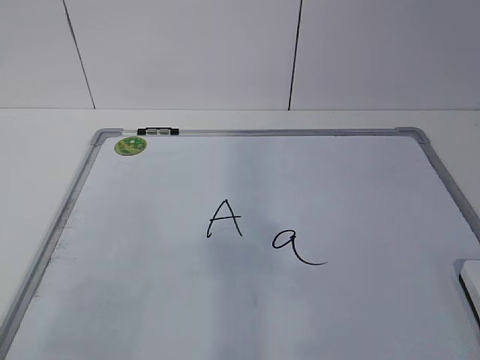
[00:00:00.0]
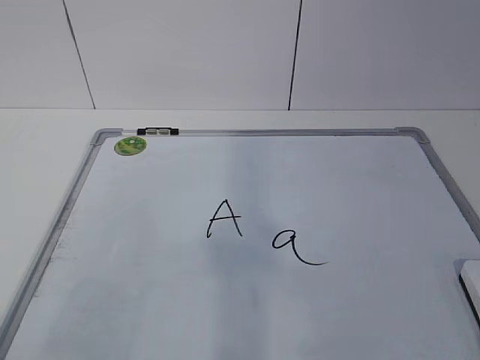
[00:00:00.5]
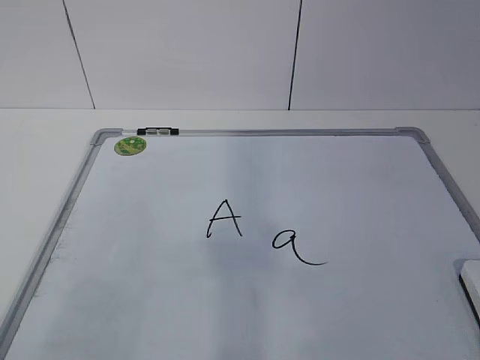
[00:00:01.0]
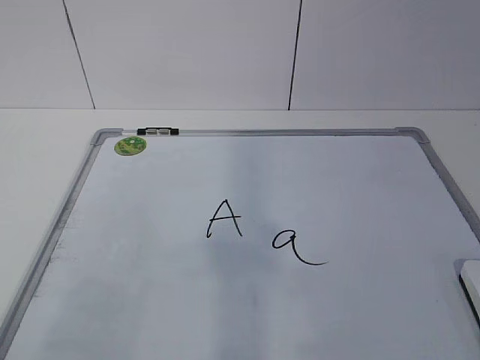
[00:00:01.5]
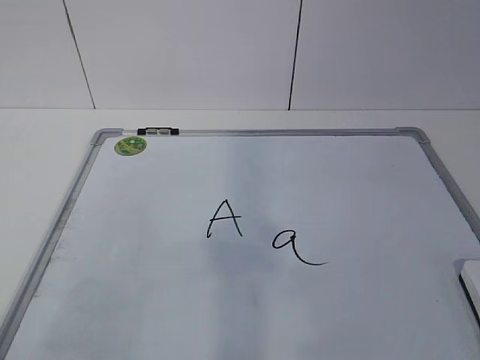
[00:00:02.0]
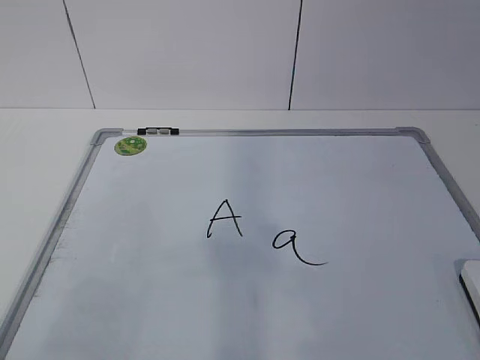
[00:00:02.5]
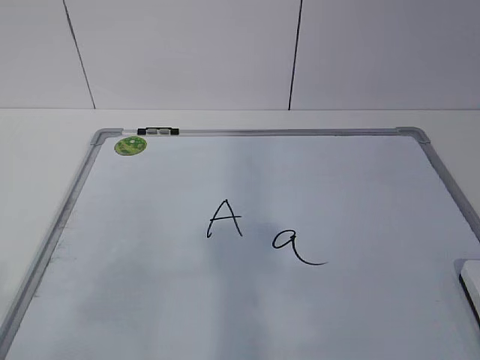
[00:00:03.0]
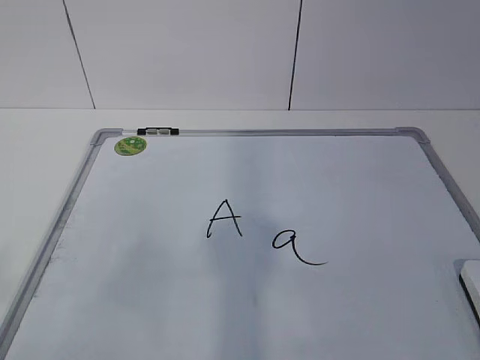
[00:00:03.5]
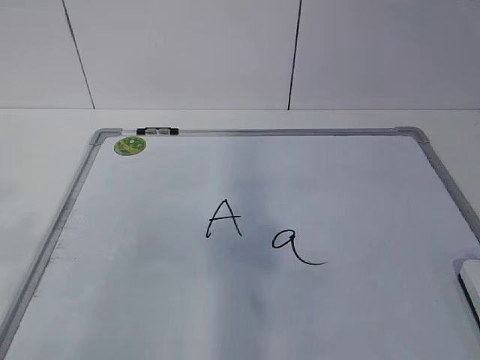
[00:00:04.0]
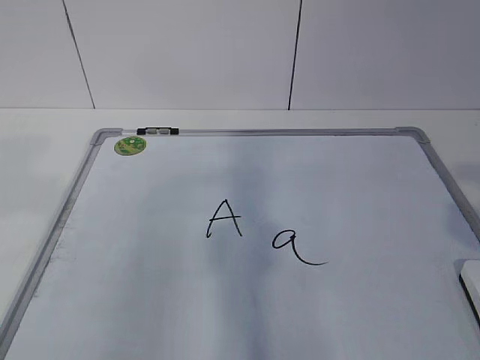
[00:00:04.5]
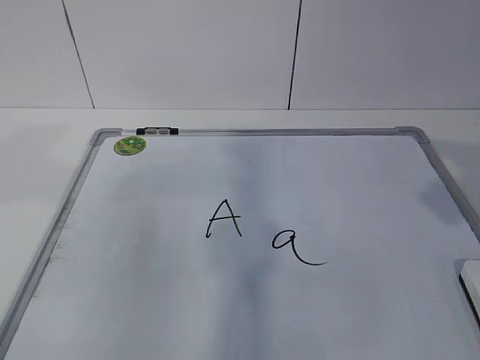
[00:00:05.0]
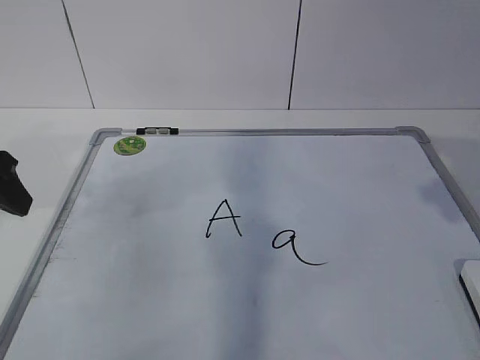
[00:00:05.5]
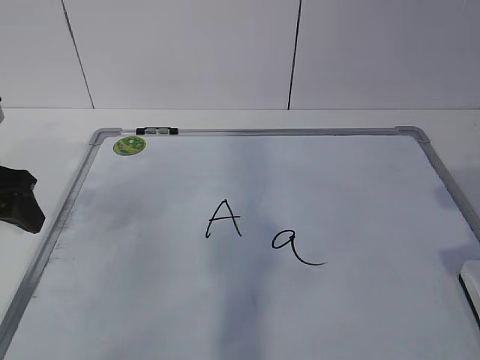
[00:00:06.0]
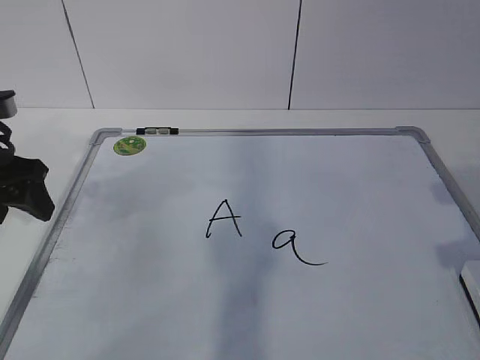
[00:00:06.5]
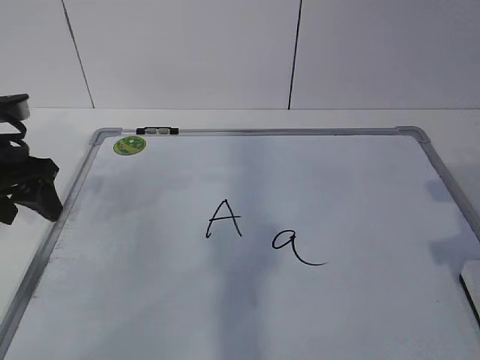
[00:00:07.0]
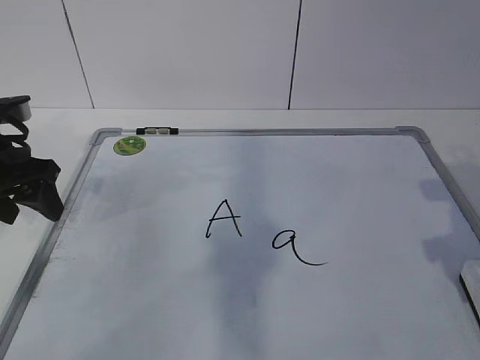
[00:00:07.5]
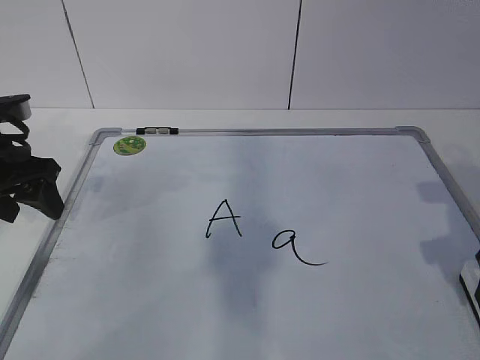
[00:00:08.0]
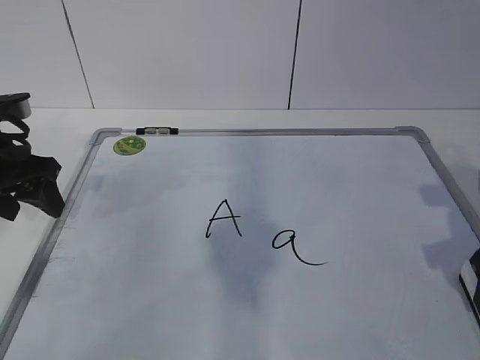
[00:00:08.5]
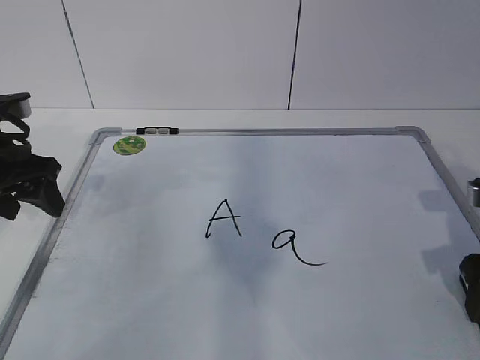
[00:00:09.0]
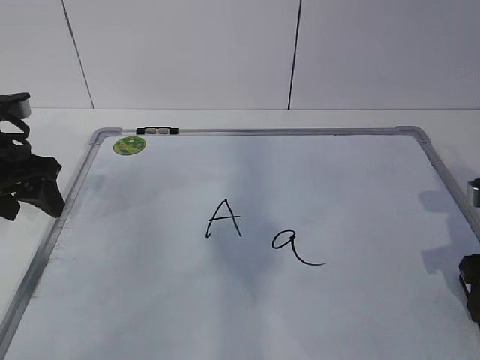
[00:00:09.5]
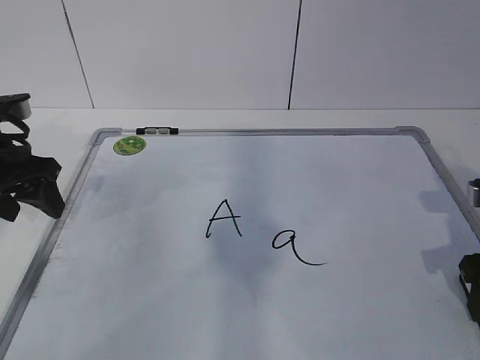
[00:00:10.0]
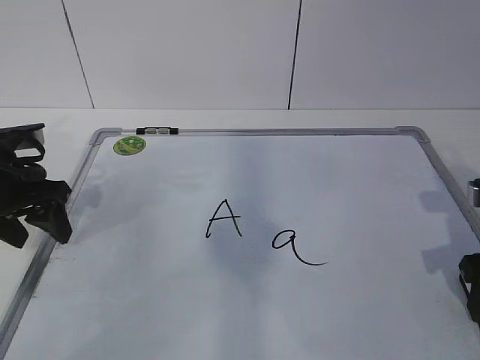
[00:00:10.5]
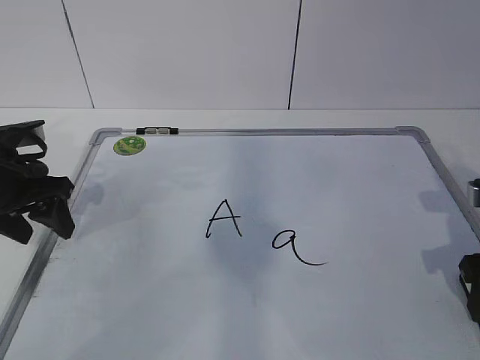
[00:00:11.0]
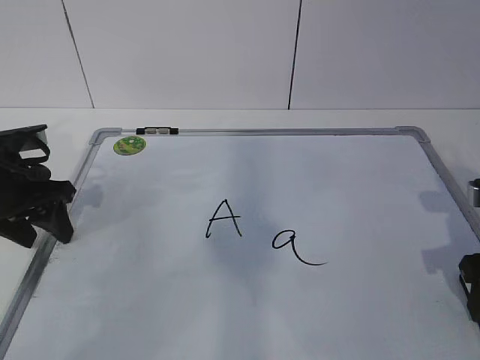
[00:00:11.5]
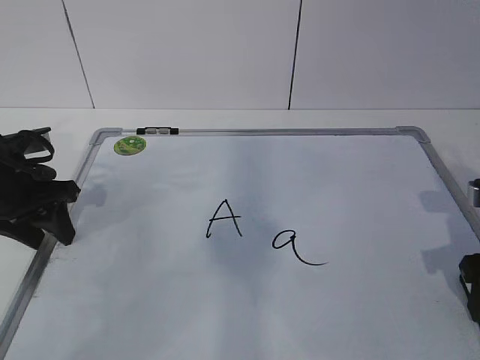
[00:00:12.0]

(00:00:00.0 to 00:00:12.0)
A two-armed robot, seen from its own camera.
Task of the whole recording: pick up the eraser on the blackboard and erase the letter "a".
Step, 00:00:00.0 - 00:00:07.5: Grab the eraser with your right hand.
00:00:04.0 - 00:00:06.0: The left gripper moves forward and downward, about 30 cm.
00:00:06.0 - 00:00:08.0: The right gripper shifts about 10 cm forward and downward.
00:00:08.0 - 00:00:10.0: The right gripper closes its fingers.
00:00:10.0 - 00:00:12.0: The grippers move only a little.

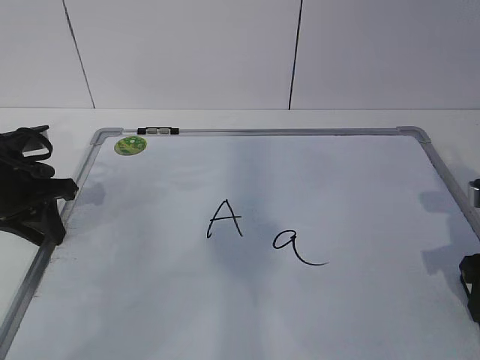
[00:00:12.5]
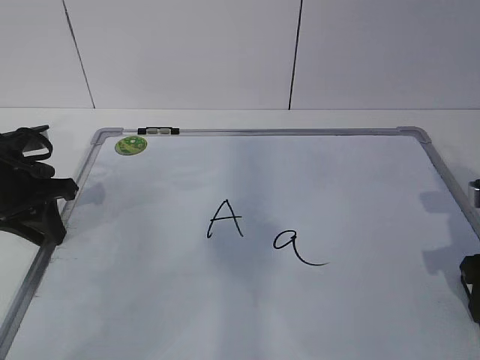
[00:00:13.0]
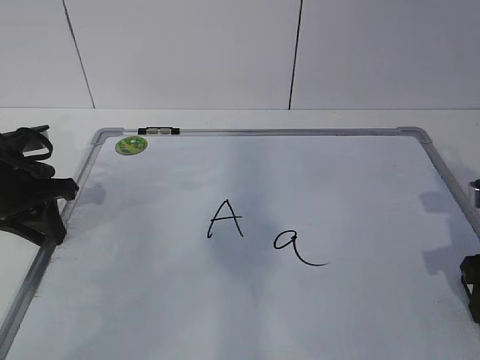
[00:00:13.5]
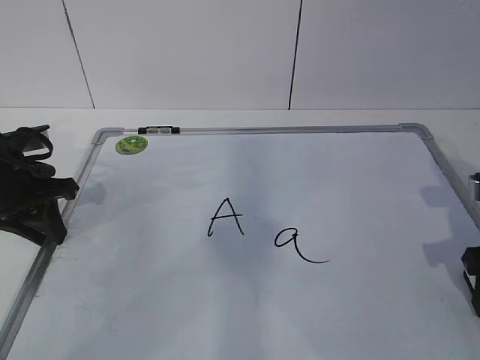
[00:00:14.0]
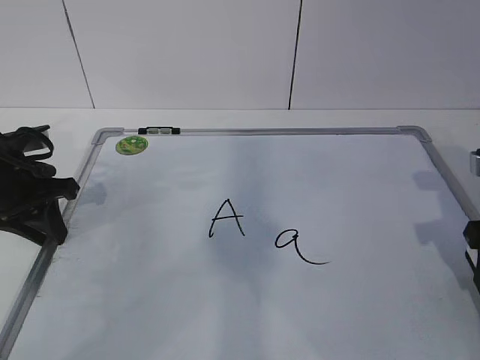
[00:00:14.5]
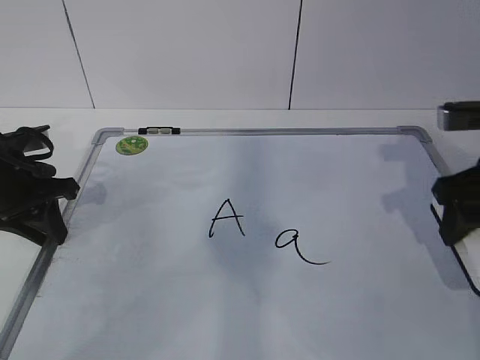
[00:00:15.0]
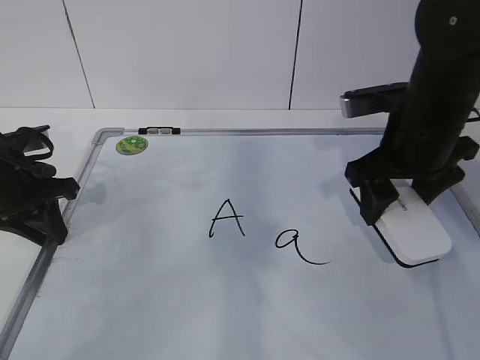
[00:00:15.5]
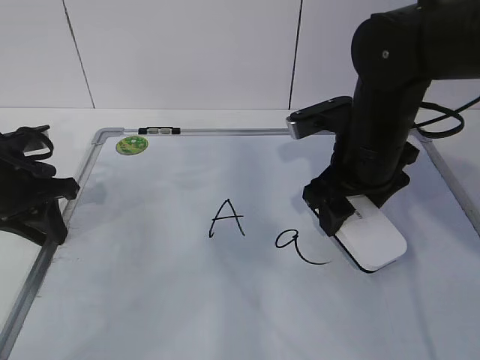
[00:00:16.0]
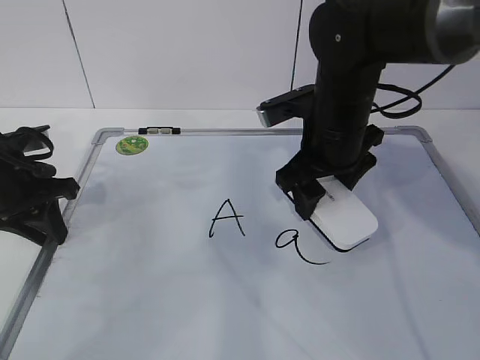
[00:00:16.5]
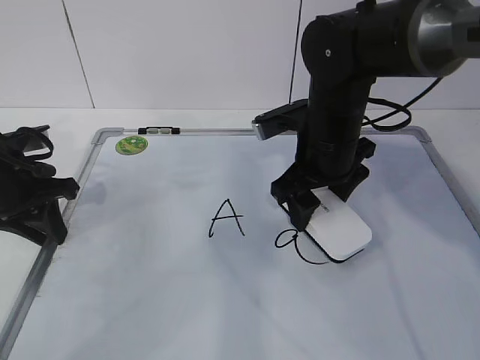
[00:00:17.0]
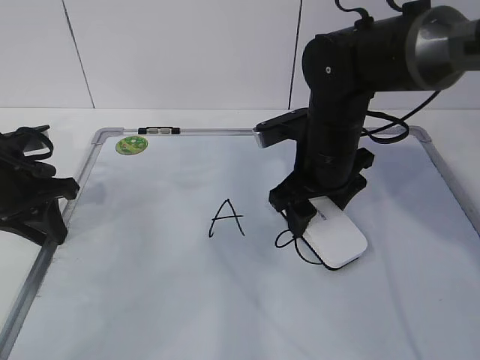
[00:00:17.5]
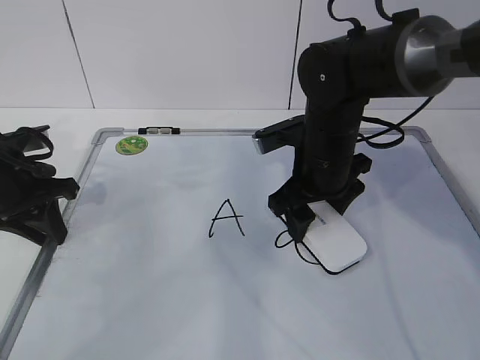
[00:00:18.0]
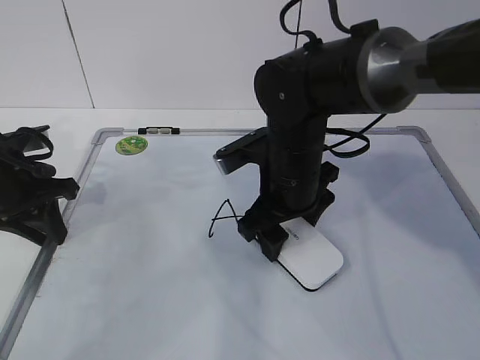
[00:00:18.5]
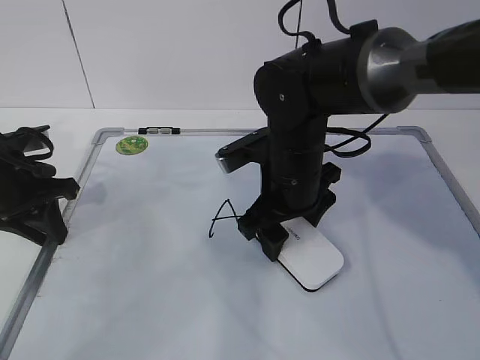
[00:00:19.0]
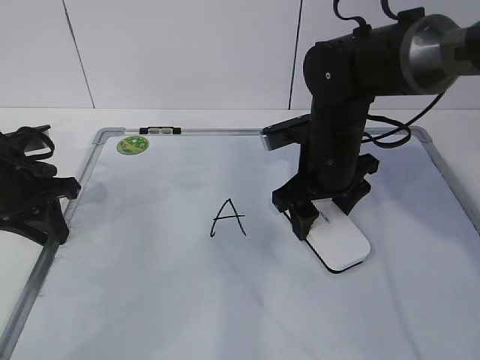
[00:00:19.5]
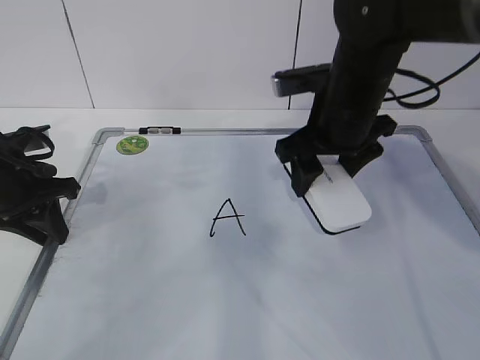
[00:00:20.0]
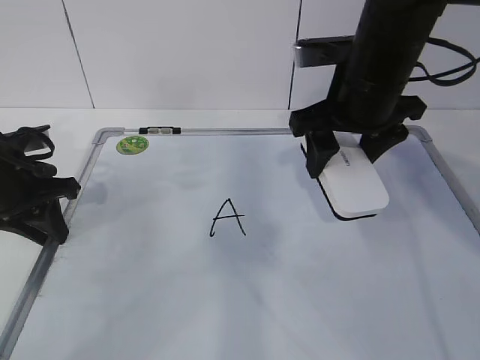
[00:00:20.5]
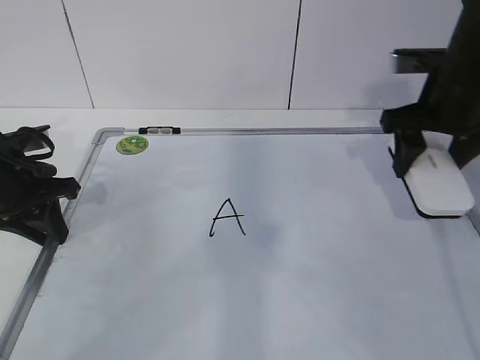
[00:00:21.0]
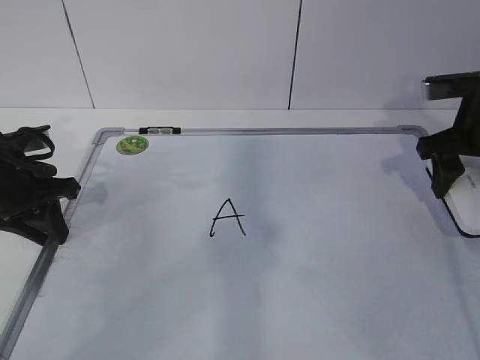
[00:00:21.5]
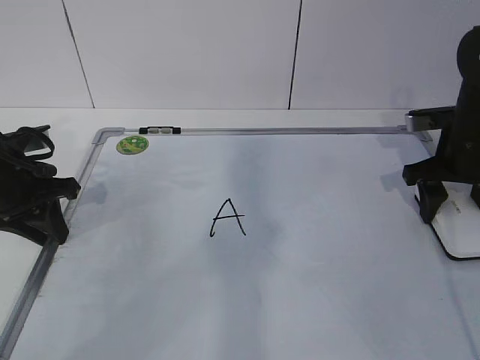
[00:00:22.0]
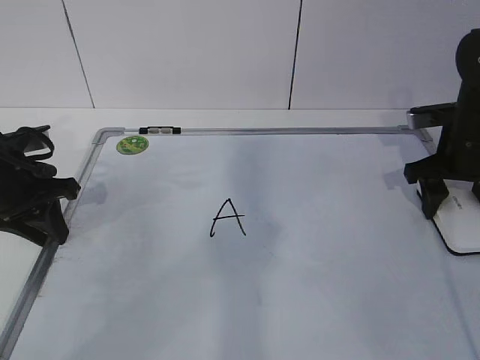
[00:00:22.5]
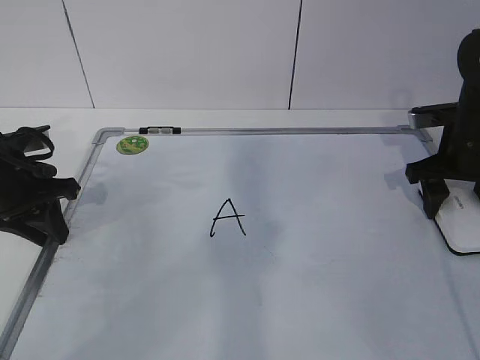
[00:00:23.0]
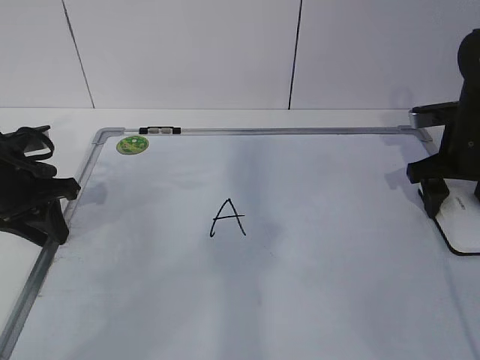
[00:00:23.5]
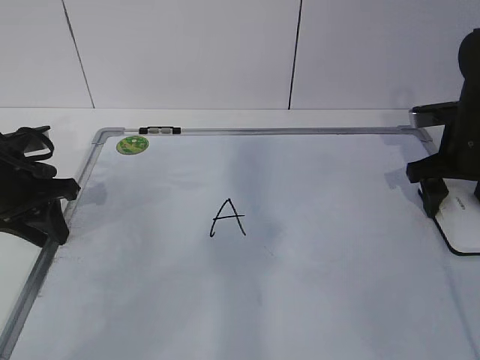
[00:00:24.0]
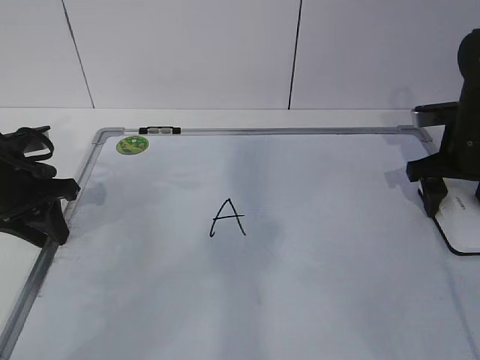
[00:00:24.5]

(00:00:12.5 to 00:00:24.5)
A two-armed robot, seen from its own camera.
Task of the whole recording: pick up the eraser on the blackboard and erase the letter "a".
Step, 00:00:12.5 - 00:00:16.0: Erase the letter a with your right hand.
Step, 00:00:16.5 - 00:00:19.0: Put down the eraser with your right hand.
00:00:12.5 - 00:00:14.5: The grippers move only a little.
00:00:14.5 - 00:00:16.5: The right gripper travels to the left and forward by approximately 20 cm.
00:00:16.5 - 00:00:18.5: The right gripper moves approximately 5 cm.
00:00:18.5 - 00:00:20.5: The right gripper heads upward and to the right, covering approximately 10 cm.
00:00:20.5 - 00:00:22.5: The right gripper is displaced to the right and downward by some 20 cm.
00:00:22.5 - 00:00:24.5: The right gripper opens.

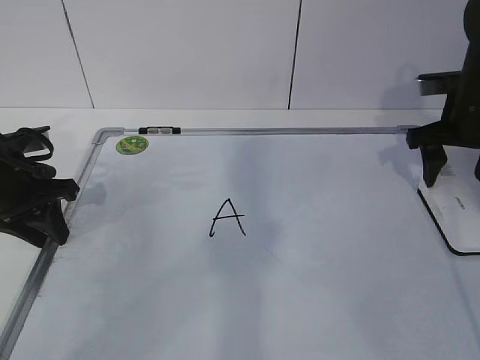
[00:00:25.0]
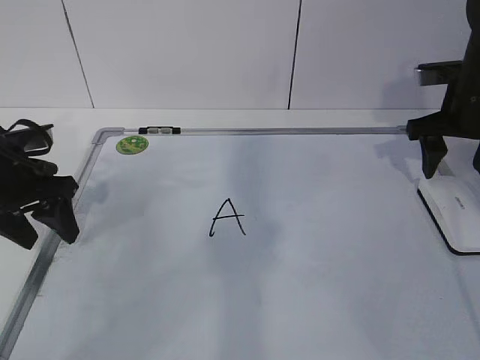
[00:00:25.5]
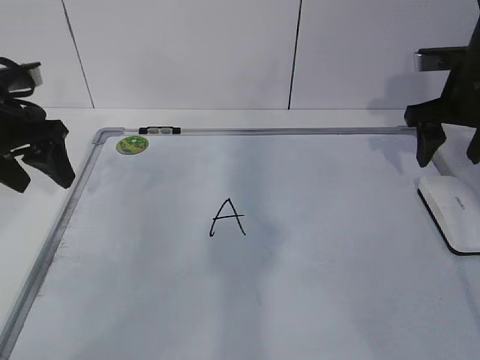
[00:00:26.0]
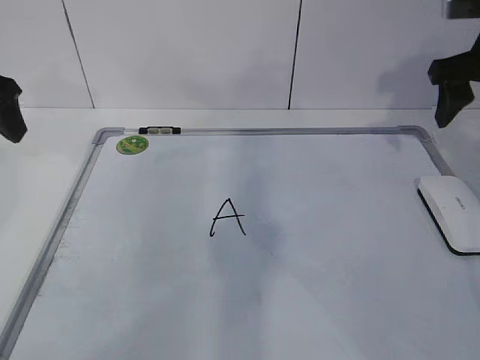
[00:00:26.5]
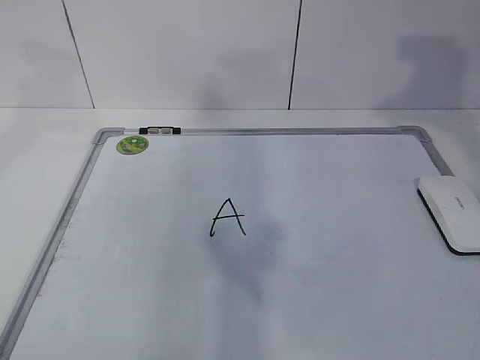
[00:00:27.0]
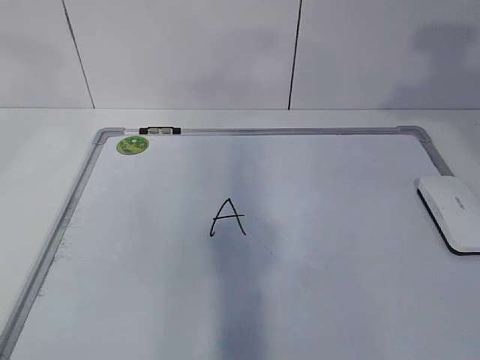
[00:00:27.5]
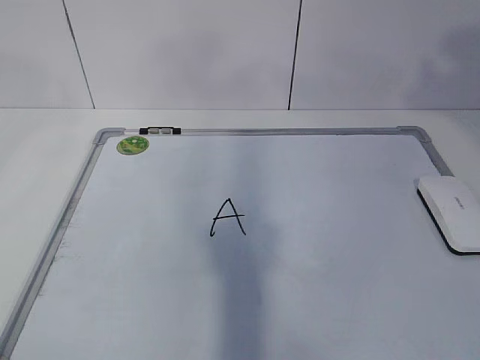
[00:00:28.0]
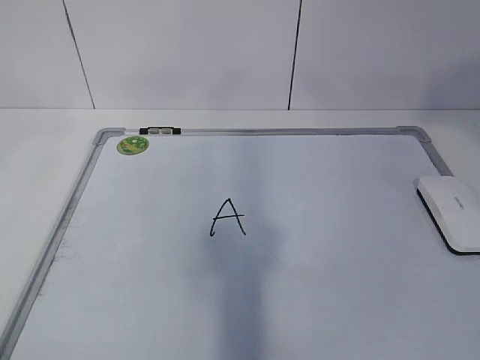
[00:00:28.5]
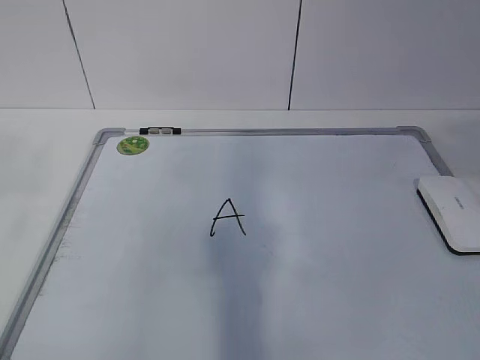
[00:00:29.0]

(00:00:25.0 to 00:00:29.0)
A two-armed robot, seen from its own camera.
Task of the whole recording: pick up the eraser on the blackboard and erase the letter "a".
00:00:25.0 - 00:00:27.0: The right gripper moves upward and backward, approximately 20 cm; the left gripper shifts roughly 25 cm upward, and opens up.
00:00:27.0 - 00:00:29.0: The right gripper heads backward, covering about 25 cm.
